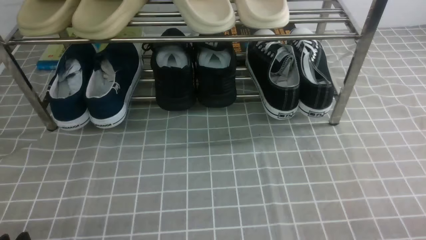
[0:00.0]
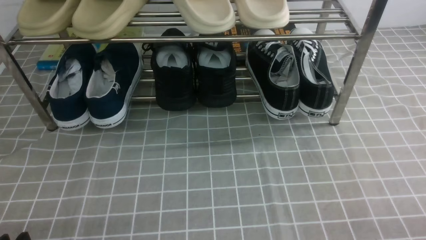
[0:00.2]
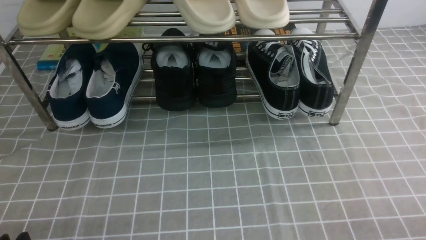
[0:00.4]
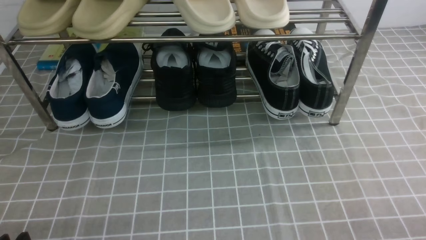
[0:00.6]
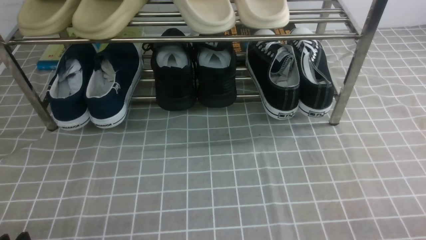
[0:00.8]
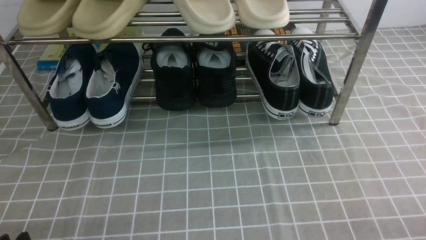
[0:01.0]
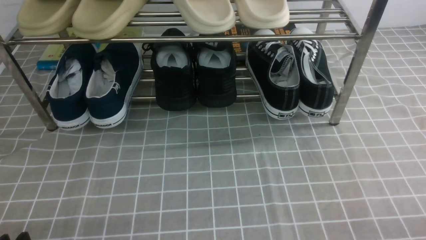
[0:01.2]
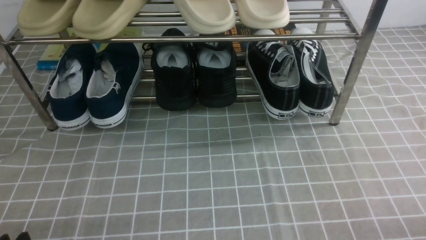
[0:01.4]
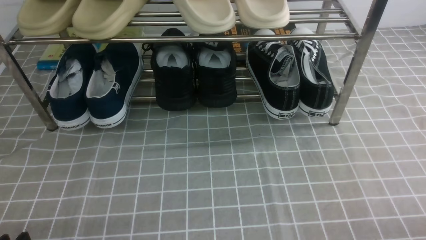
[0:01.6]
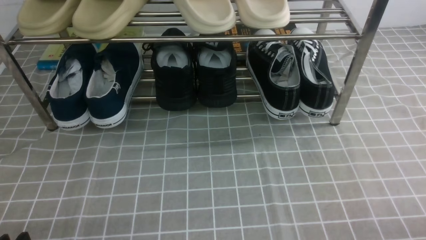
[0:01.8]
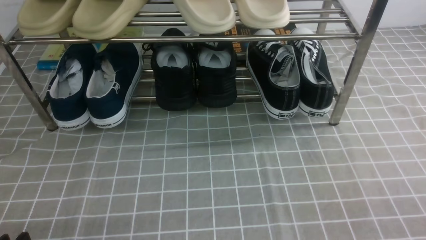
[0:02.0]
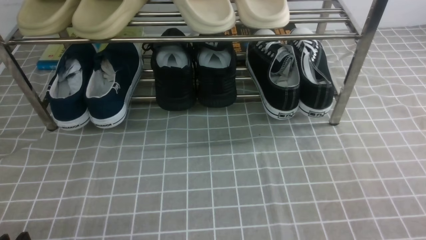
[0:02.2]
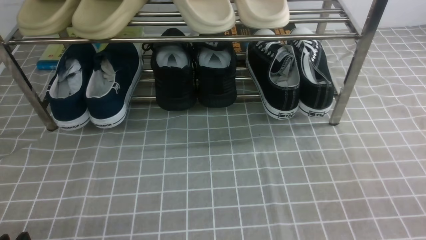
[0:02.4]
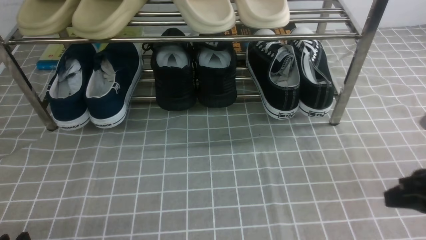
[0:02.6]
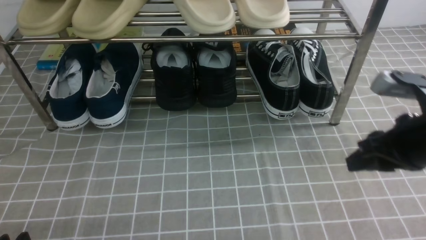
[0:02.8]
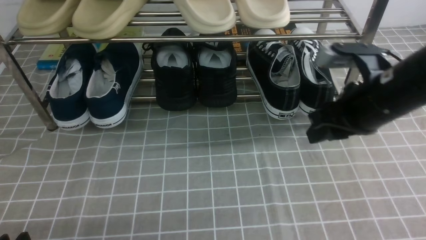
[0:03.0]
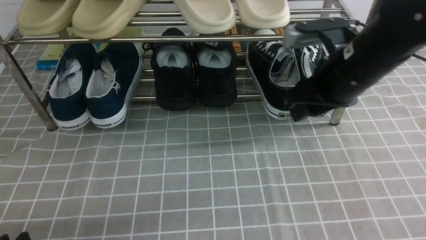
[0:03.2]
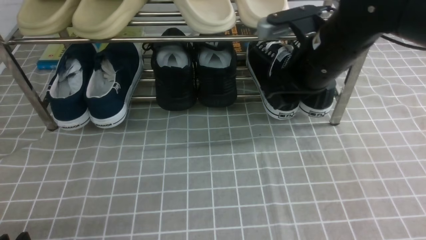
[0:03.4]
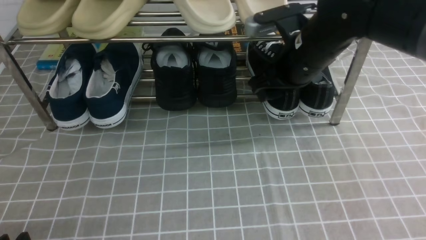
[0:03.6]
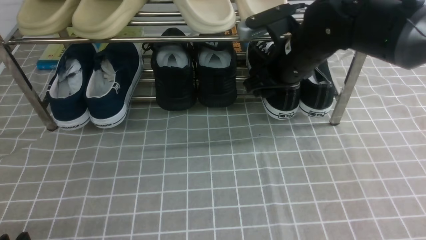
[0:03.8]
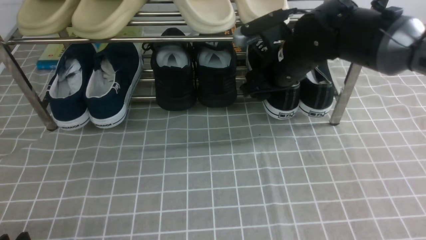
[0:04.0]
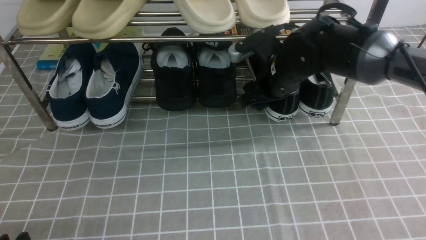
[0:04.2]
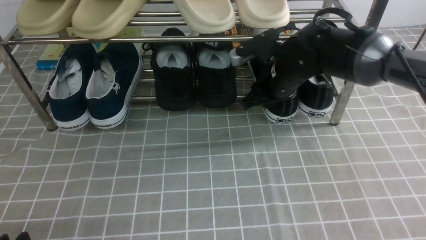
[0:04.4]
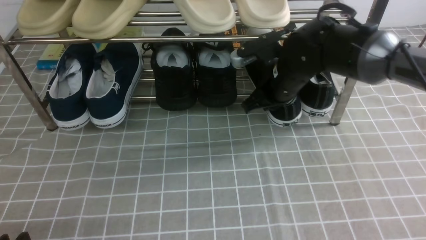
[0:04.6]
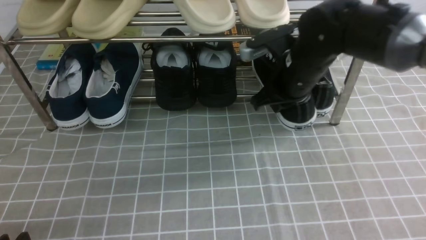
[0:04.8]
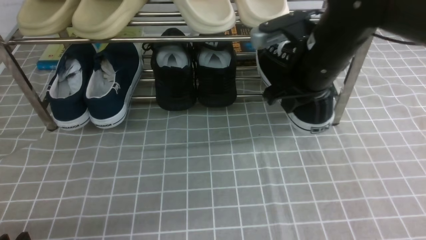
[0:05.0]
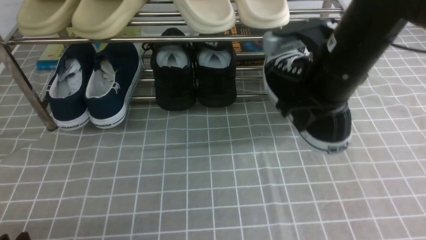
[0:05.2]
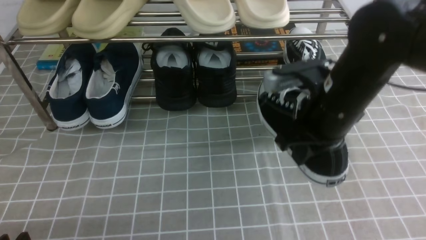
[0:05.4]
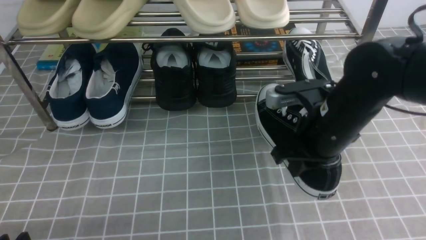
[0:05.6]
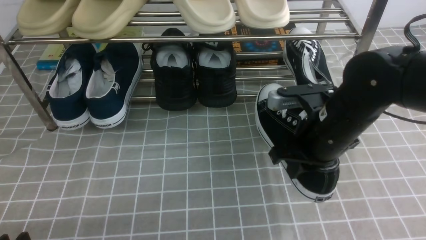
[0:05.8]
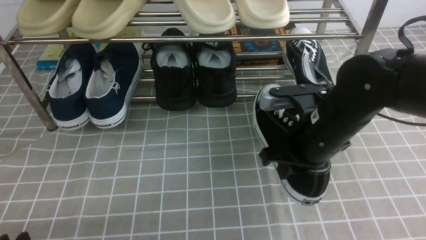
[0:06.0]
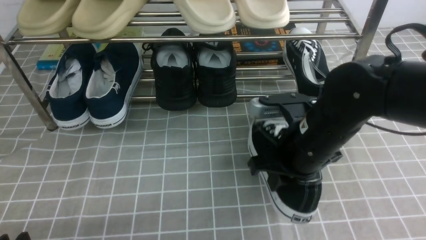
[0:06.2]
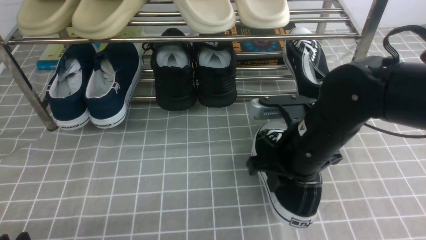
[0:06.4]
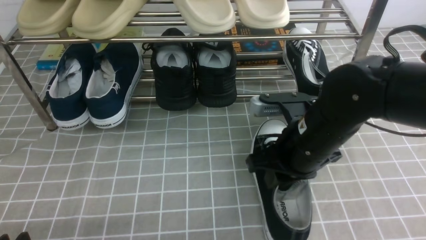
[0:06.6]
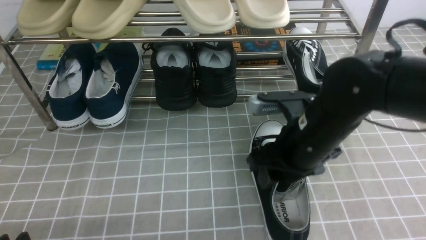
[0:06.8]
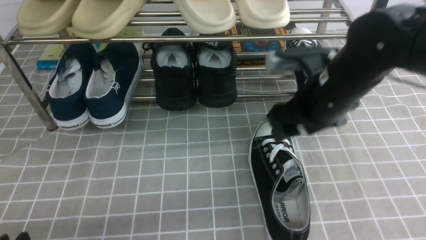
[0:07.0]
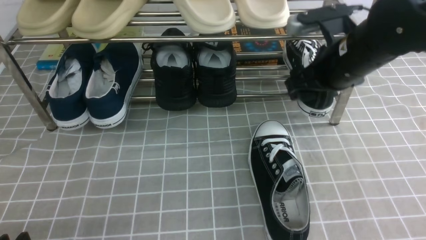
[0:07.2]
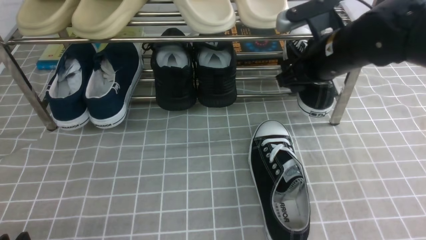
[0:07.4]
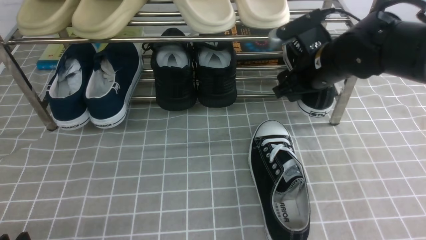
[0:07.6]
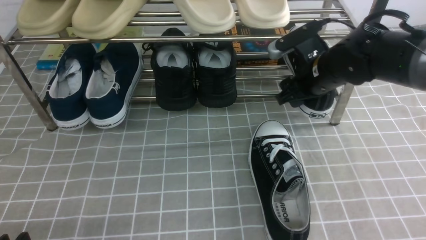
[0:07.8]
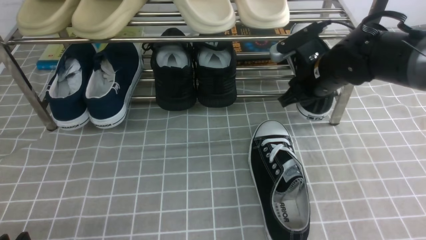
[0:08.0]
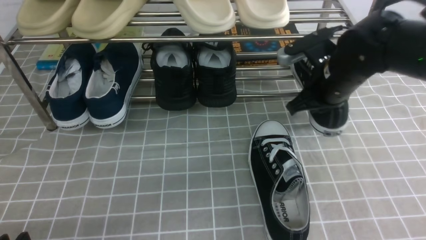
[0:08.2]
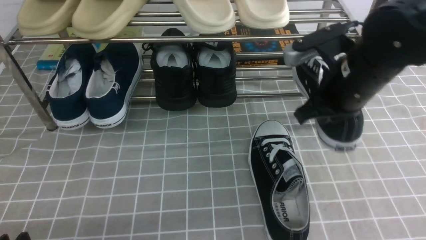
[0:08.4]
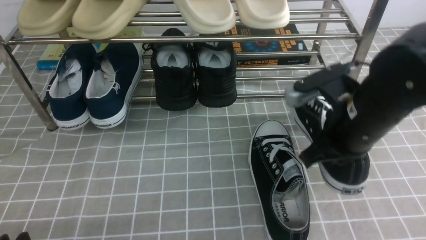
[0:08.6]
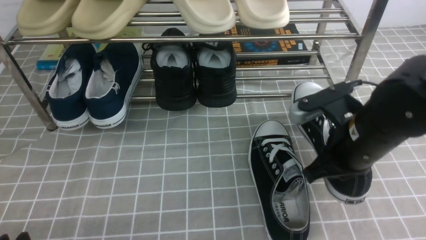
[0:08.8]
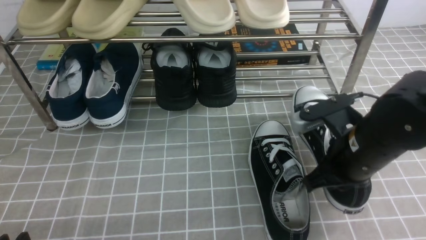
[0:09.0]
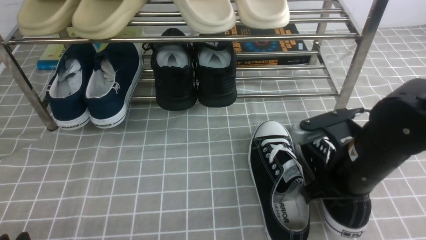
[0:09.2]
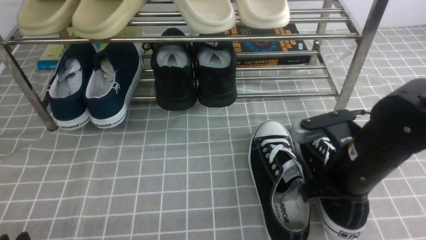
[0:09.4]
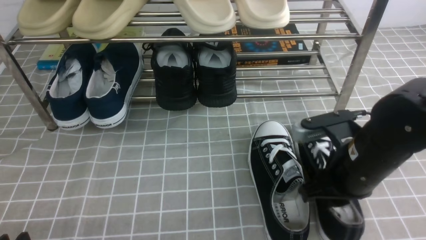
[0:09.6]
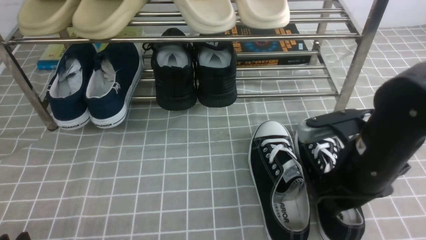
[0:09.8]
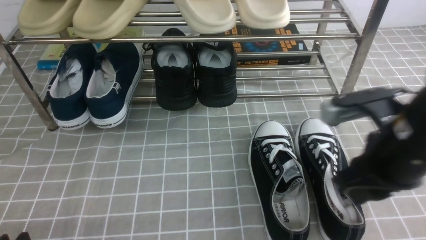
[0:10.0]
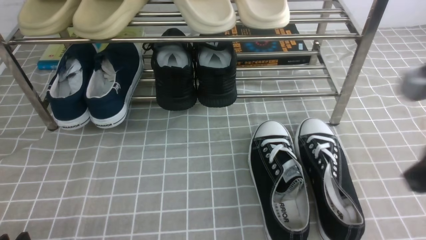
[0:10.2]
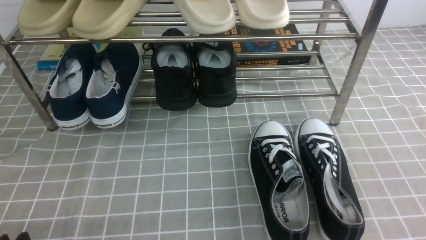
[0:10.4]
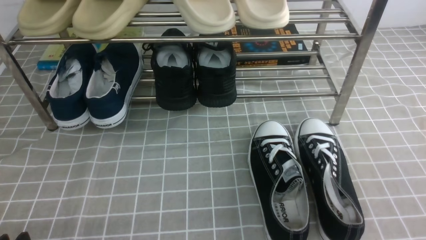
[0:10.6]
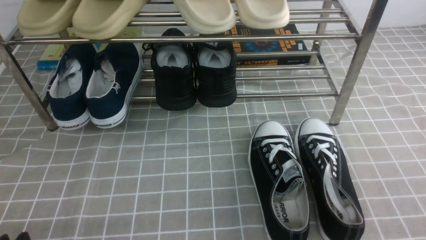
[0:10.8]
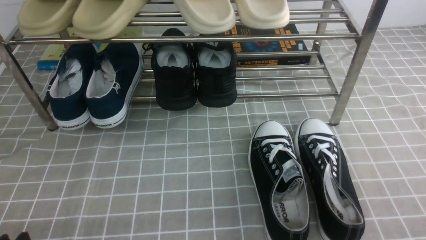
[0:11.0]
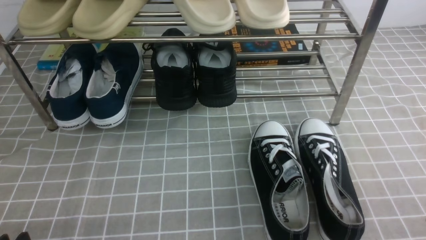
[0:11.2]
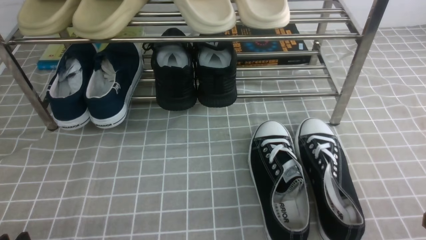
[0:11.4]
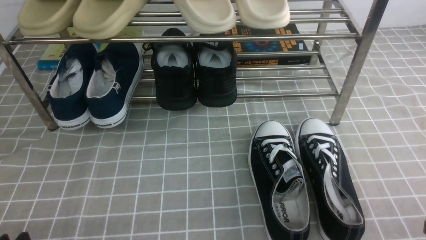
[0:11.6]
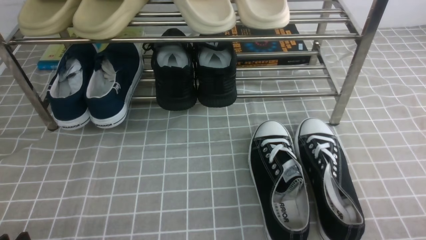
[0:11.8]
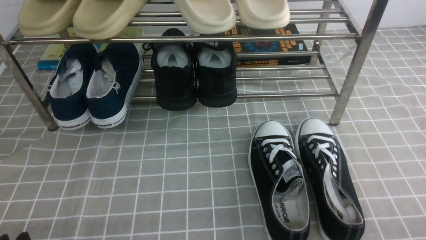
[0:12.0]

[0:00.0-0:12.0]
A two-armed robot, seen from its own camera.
Step, 0:00.0 to 0:04.4: use the right arm to clamp a shoe on the right side of the shoe rack.
Step, 0:04.6 to 0:06.6: use the right arm to take out the clamped shoe from the shoe rack and put it down.
Step, 0:07.0 to 0:08.0: use the right arm to clamp a shoe on the right side of the shoe rack.
Step, 0:08.2 to 0:09.8: use the right arm to take out the clamped shoe from the shoe rack and put it down.
0:01.6 to 0:03.0: The right gripper travels forward, upward and to the left by about 30 cm, and closes and opens again.
0:03.0 to 0:04.4: The right gripper shifts roughly 15 cm forward, to the left and downward.
0:04.4 to 0:06.0: The right gripper heads backward, covering approximately 15 cm.
0:06.0 to 0:07.6: The right gripper heads forward, covering roughly 10 cm, and opens its fingers.
0:07.6 to 0:09.0: The right gripper moves backward, about 15 cm, and closes up.
0:09.0 to 0:10.4: The right gripper goes about 20 cm backward, upward and to the right, and opens and closes again.

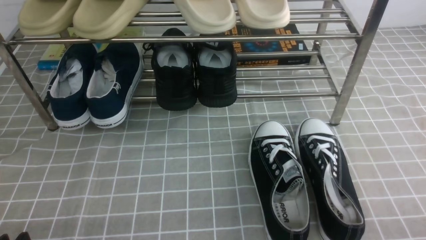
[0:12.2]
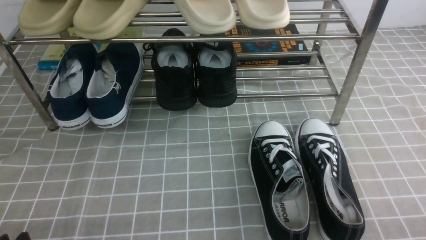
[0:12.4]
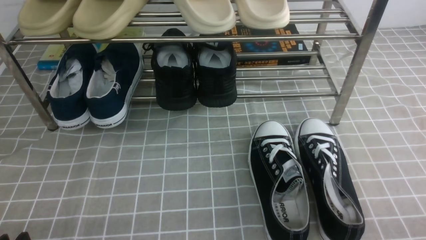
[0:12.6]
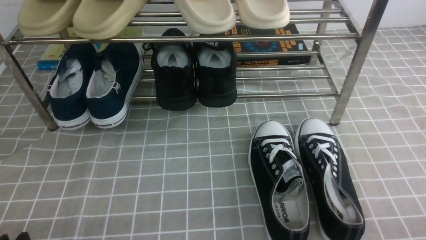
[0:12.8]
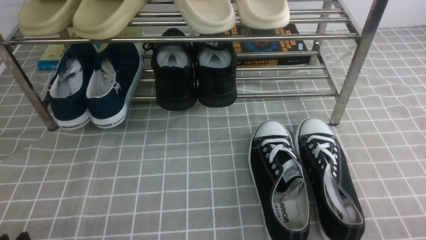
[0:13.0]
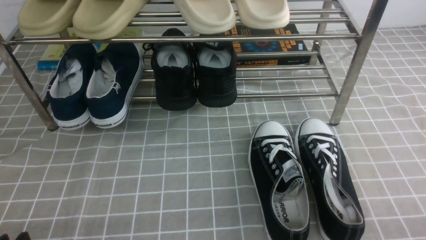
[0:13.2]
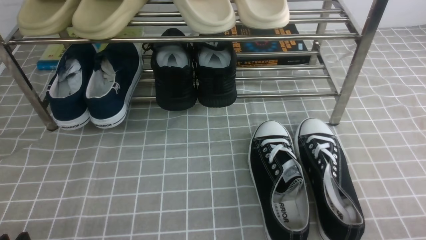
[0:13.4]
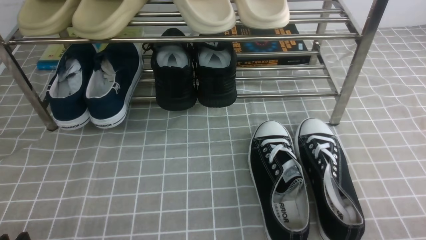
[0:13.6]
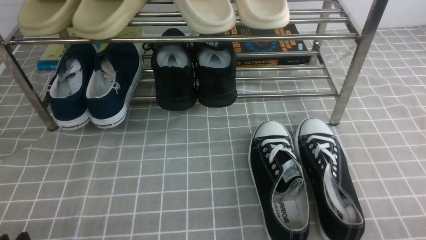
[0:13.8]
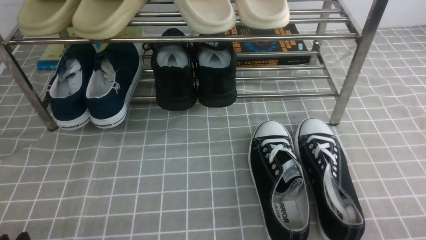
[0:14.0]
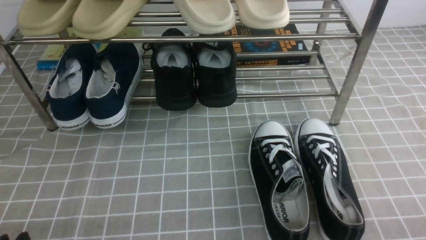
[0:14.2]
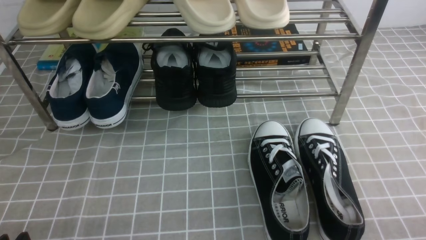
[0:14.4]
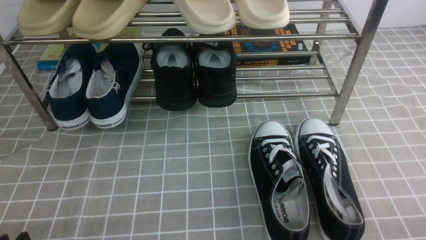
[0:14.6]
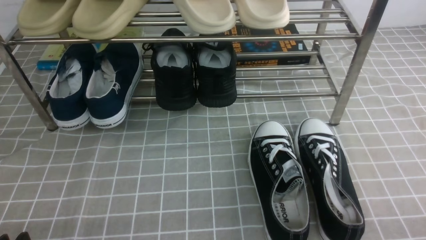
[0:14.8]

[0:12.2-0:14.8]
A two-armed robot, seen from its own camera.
0:12.2 to 0:14.8: Both grippers stay about where they are.

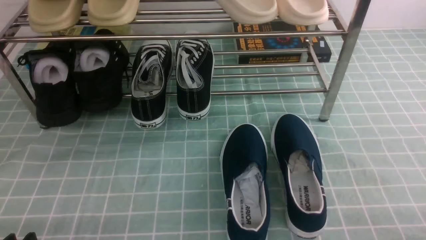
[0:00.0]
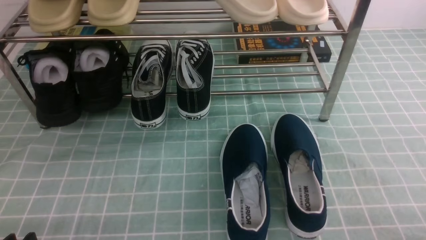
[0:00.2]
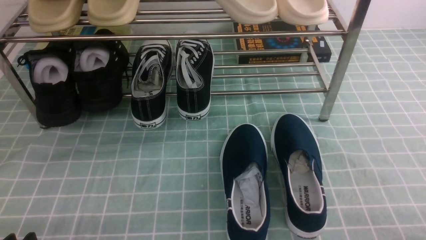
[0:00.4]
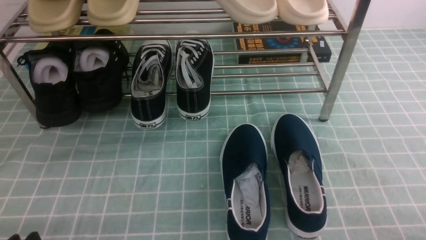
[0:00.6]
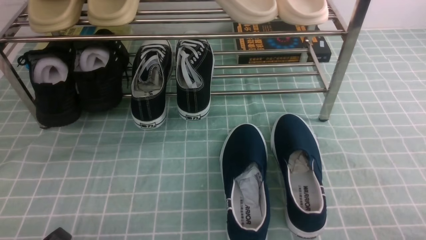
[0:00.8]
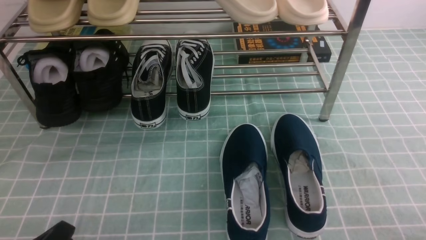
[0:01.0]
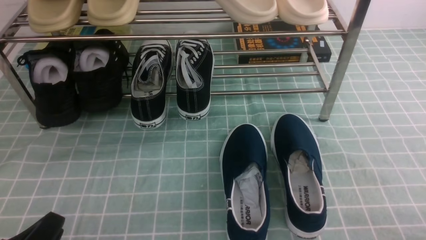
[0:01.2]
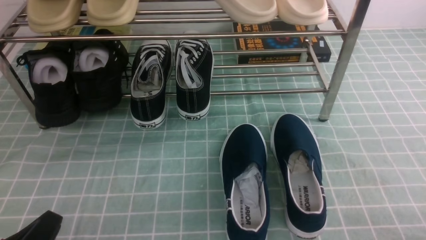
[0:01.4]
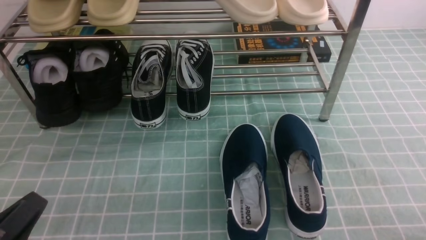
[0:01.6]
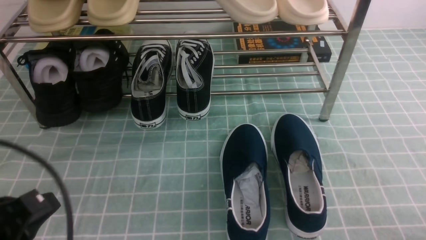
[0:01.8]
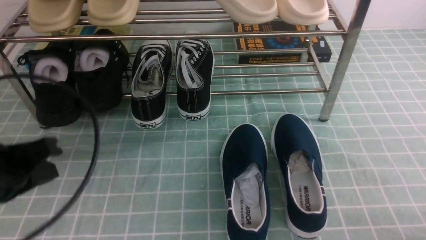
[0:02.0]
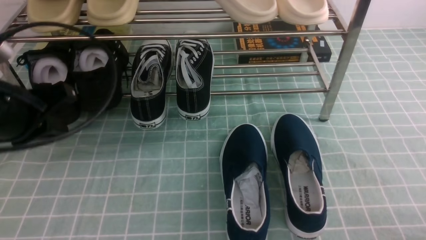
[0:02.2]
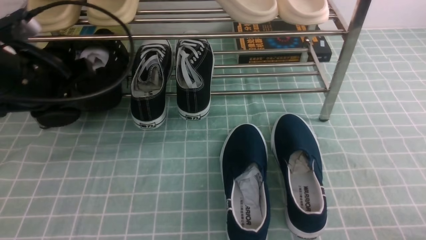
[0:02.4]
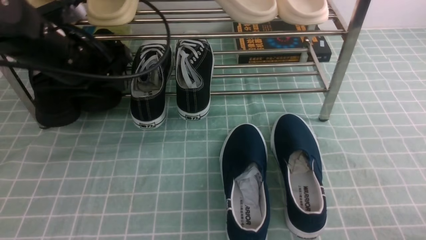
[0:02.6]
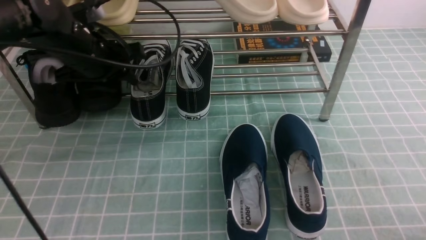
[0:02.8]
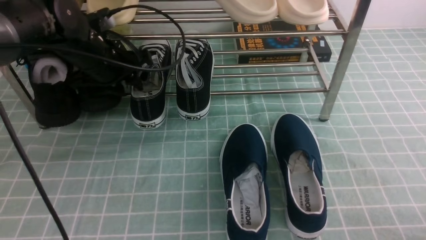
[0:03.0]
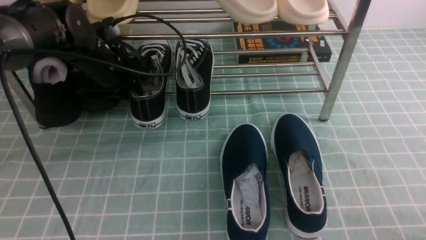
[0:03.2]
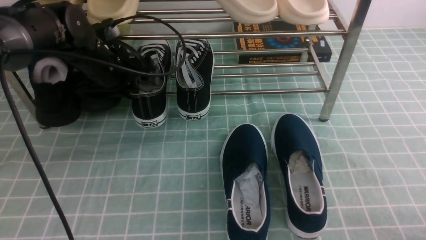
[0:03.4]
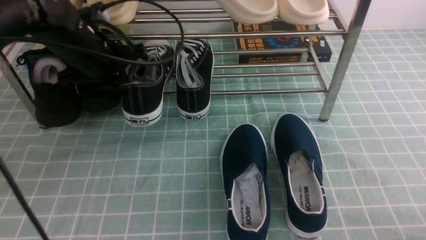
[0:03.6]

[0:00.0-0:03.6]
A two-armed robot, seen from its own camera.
Step, 0:00.0 to 0:03.2: use the left arm to clamp a shoe in the middle of the shoe rack.
0:00.0 to 0:01.8: The left gripper moves upward, approximately 10 cm, and closes.
0:01.8 to 0:03.6: The left gripper moves forward, roughly 25 cm, and opens and closes again.
